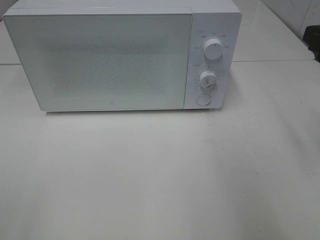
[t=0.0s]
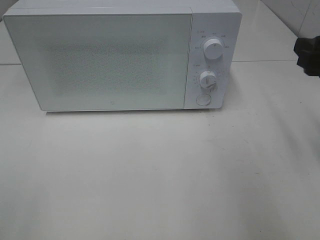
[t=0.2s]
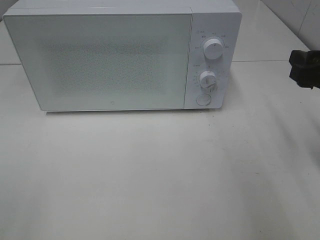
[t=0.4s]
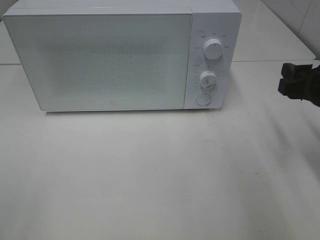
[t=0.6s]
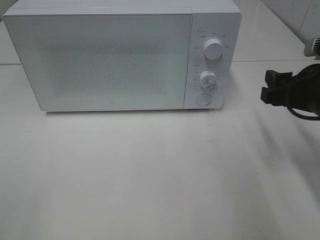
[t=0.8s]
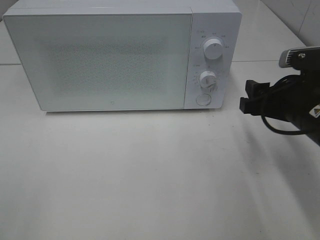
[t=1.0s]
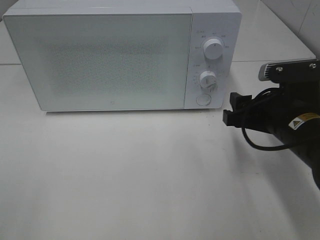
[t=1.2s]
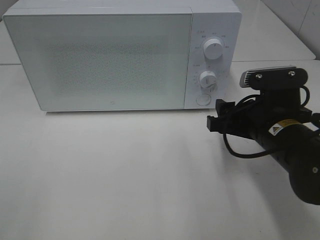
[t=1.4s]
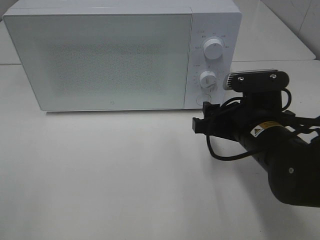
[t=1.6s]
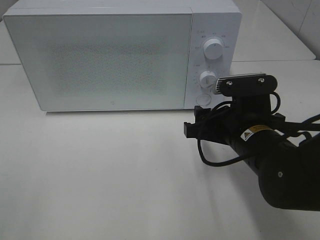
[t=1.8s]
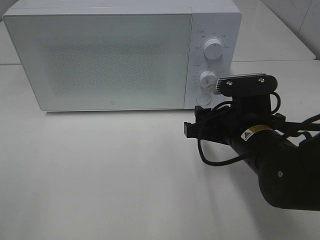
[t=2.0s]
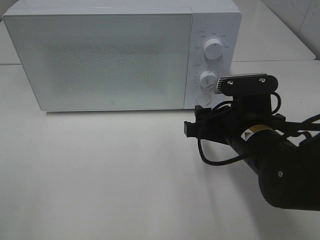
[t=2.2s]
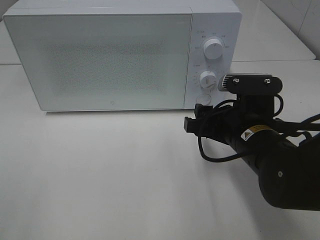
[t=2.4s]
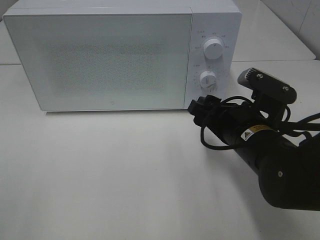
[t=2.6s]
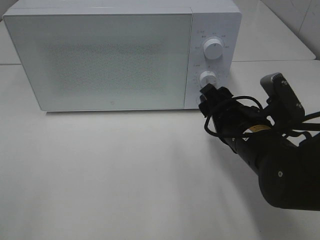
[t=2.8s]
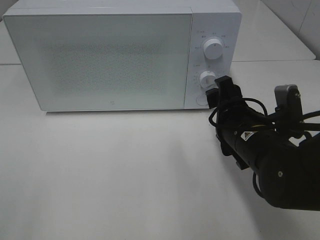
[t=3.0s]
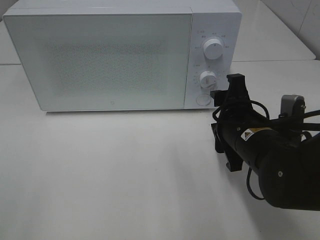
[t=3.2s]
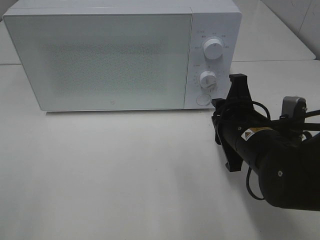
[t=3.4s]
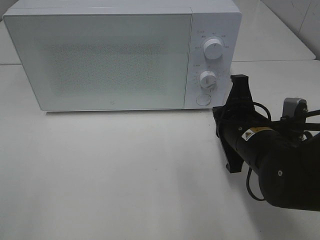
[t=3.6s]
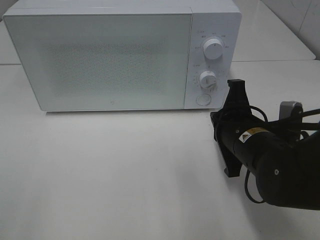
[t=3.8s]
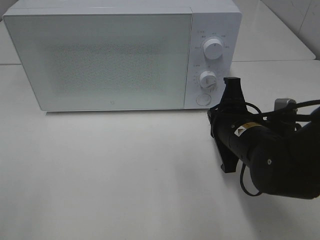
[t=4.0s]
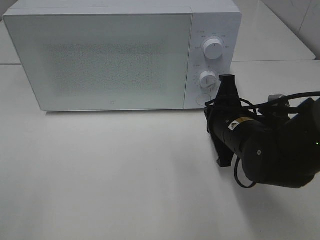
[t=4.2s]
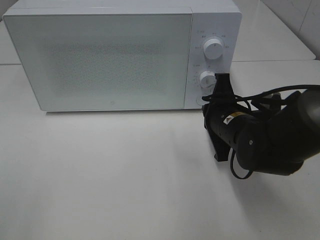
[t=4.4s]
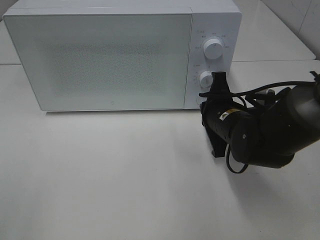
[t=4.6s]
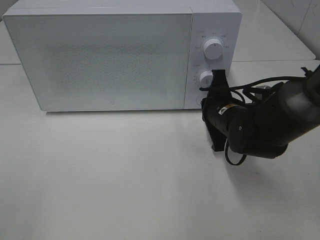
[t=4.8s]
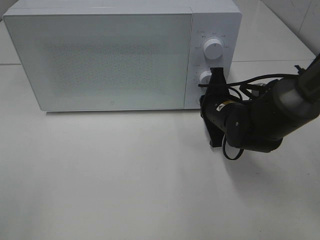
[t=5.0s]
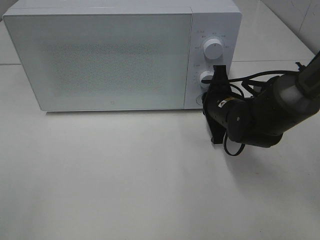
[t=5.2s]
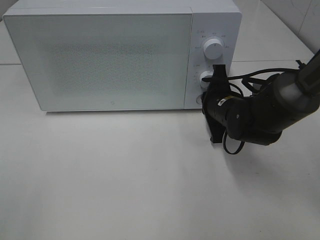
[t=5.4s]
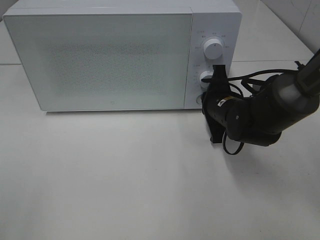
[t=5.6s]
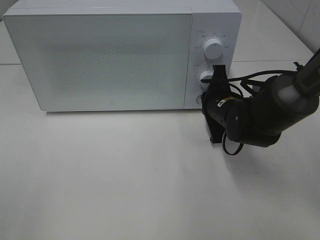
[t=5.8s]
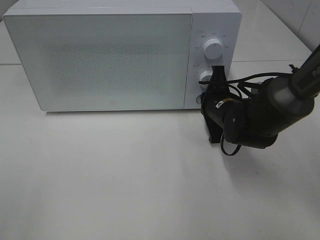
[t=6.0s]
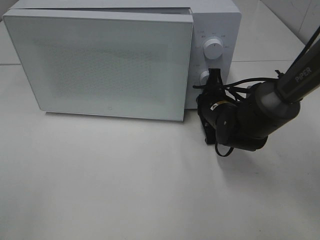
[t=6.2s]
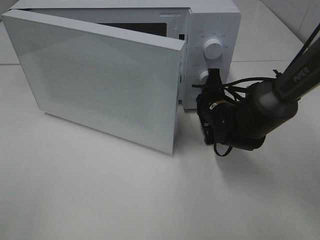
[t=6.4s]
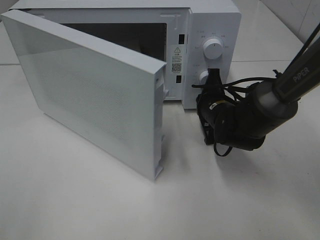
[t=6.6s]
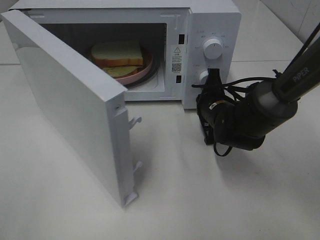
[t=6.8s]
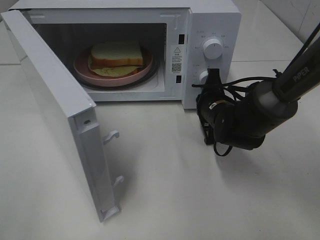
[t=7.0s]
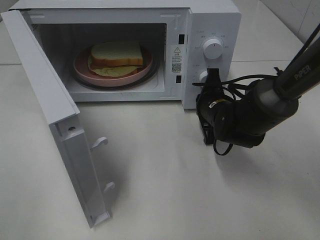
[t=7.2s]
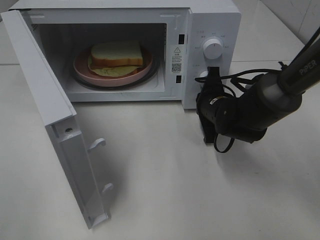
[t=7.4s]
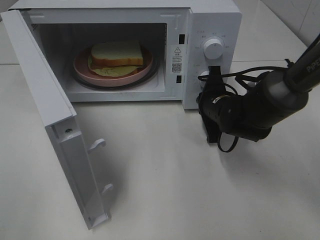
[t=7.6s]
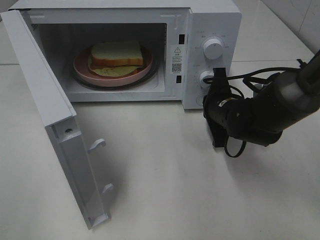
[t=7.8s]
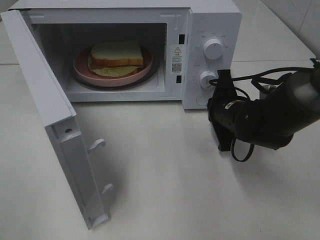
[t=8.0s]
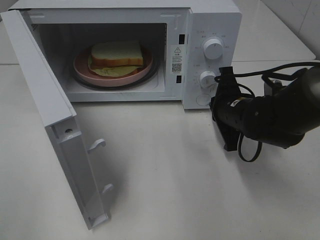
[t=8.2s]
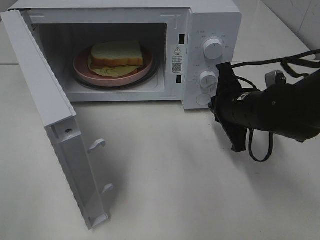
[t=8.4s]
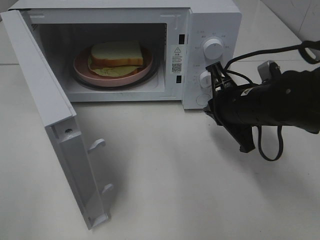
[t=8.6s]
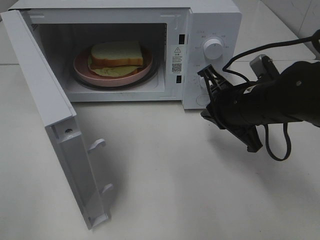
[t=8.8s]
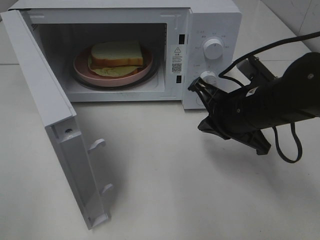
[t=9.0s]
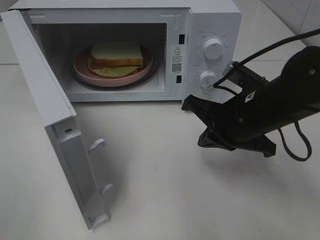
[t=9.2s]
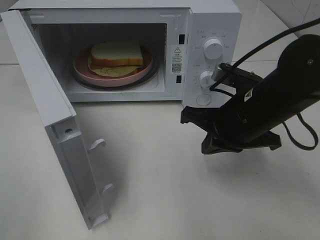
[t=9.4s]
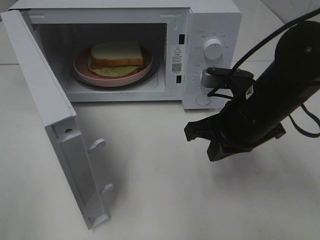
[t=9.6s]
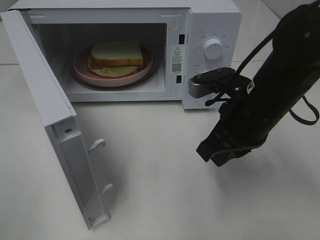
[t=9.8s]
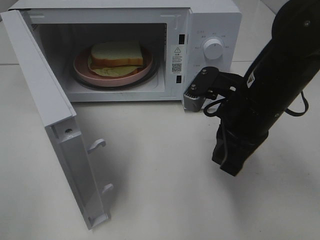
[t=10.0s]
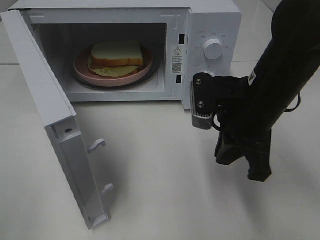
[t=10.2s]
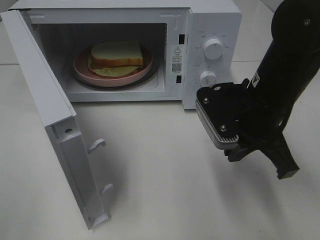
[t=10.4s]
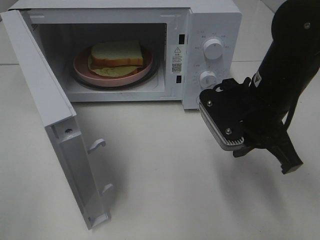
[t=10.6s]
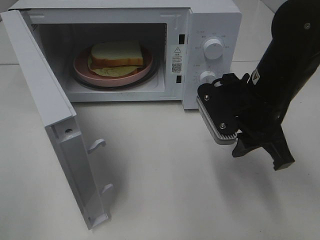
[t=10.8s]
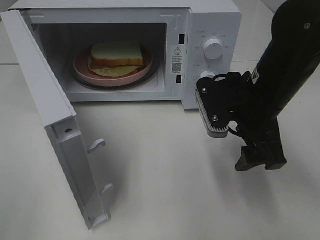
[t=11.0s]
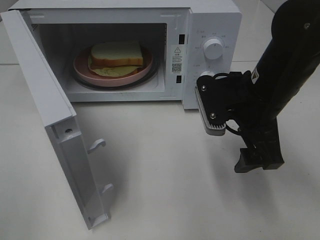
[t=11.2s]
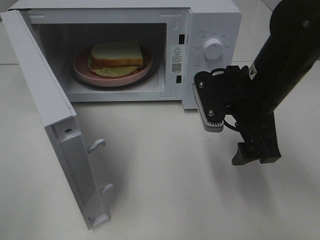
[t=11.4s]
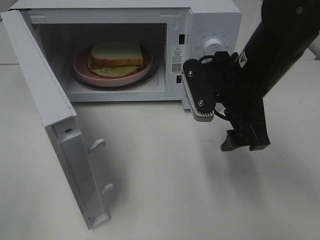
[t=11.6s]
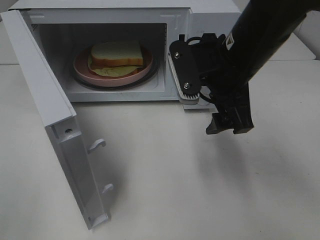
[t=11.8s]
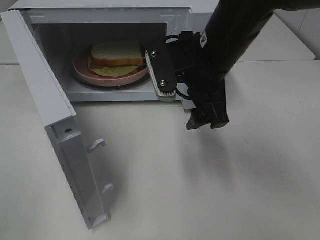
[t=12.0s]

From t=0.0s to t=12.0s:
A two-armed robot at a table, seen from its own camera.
Task of the whole recording: Heat Sandwich.
Step, from t=0.0s to t=8.2s: Right hand: press the switch.
From t=0.0s to t=1.6s: The right gripper goes about 20 cm downward and to the left.
From t=3.0s to t=4.4s: The right gripper travels forward by roughly 5 cm, and closes its fingers.
From t=4.4s to t=6.0s: The right gripper is displaced forward by about 5 cm.
From t=7.6s to t=9.0s: The right gripper moves backward and upward, roughly 10 cm.
From t=10.4s to t=12.0s: The right gripper shifts about 5 cm to the left, and opens up.

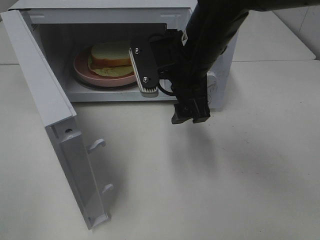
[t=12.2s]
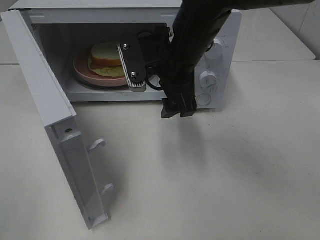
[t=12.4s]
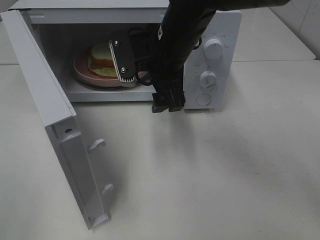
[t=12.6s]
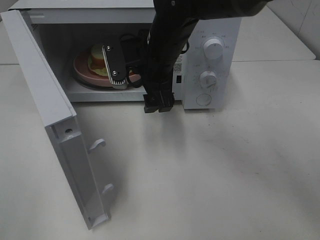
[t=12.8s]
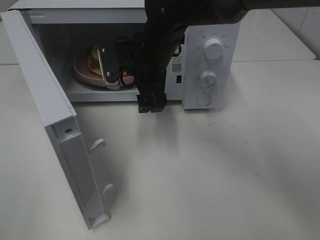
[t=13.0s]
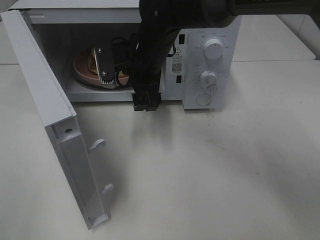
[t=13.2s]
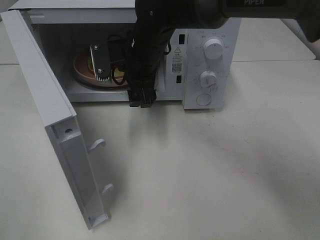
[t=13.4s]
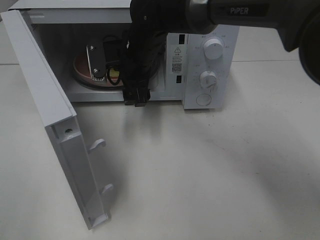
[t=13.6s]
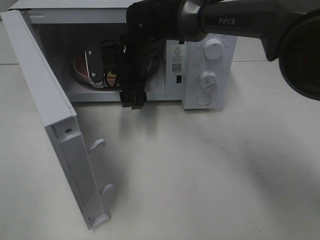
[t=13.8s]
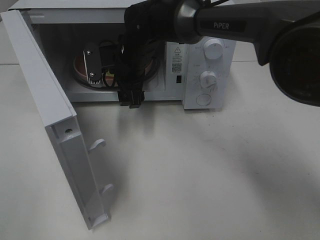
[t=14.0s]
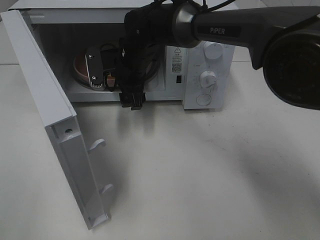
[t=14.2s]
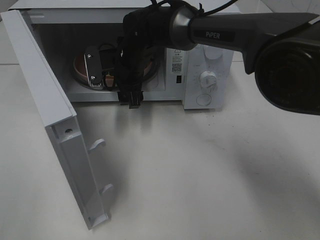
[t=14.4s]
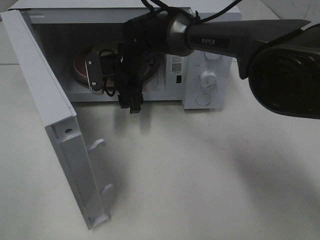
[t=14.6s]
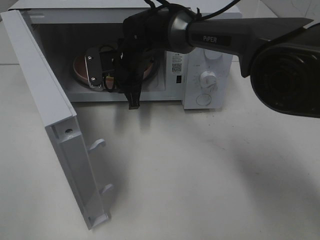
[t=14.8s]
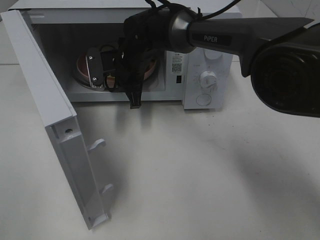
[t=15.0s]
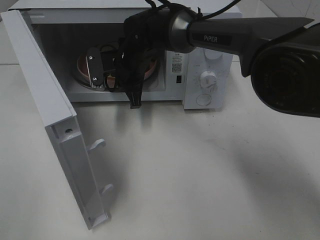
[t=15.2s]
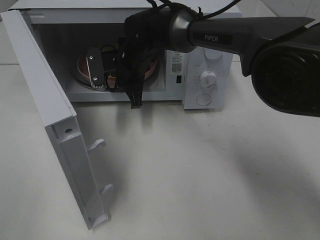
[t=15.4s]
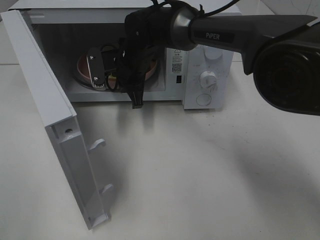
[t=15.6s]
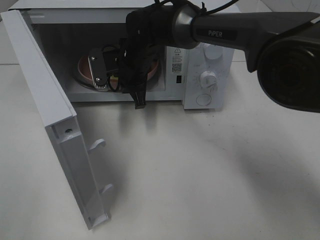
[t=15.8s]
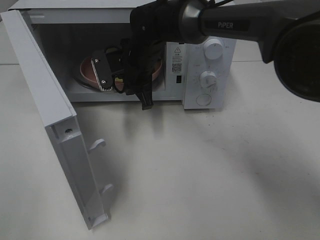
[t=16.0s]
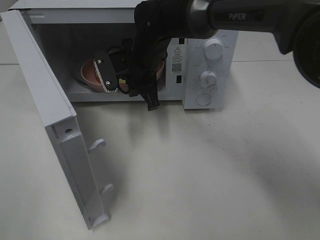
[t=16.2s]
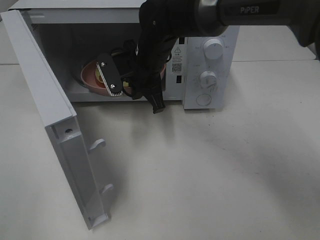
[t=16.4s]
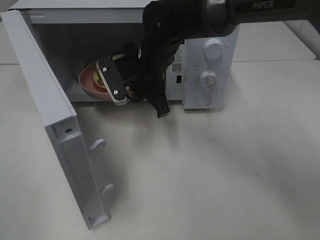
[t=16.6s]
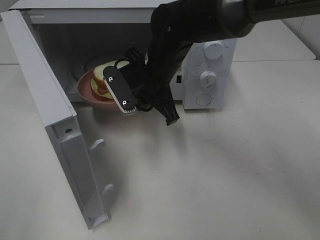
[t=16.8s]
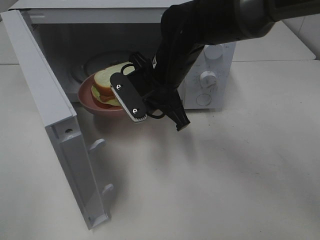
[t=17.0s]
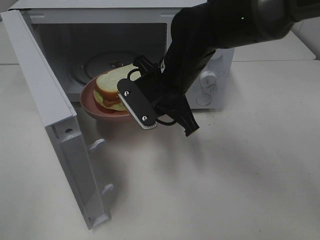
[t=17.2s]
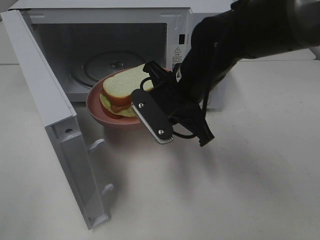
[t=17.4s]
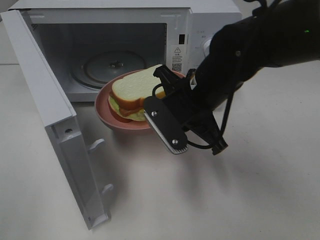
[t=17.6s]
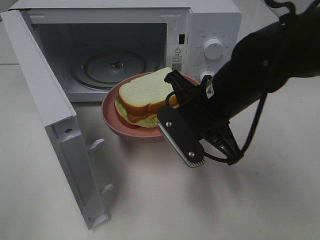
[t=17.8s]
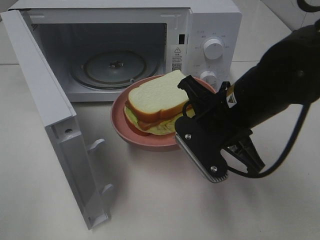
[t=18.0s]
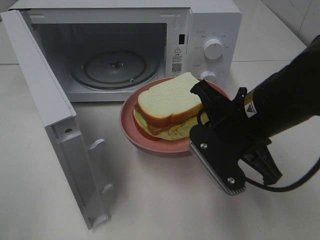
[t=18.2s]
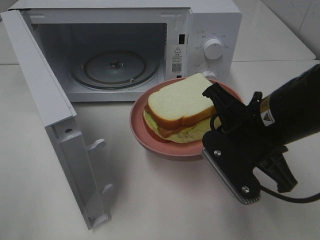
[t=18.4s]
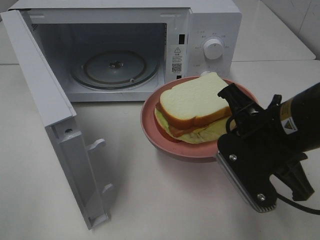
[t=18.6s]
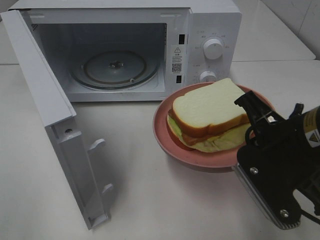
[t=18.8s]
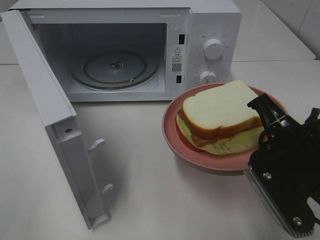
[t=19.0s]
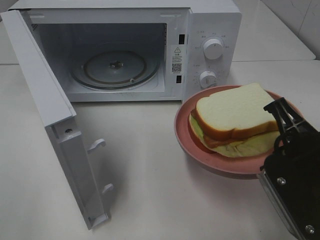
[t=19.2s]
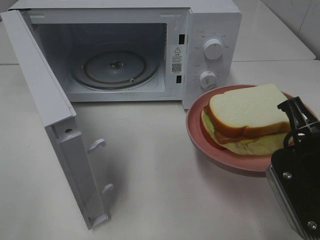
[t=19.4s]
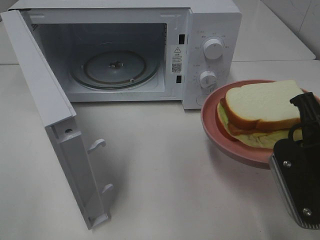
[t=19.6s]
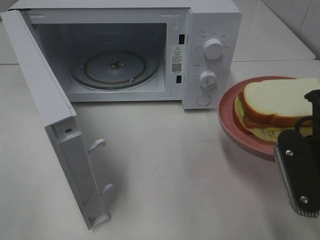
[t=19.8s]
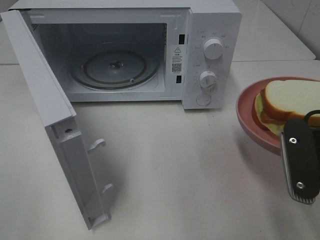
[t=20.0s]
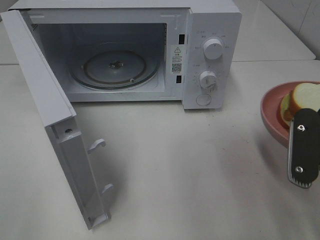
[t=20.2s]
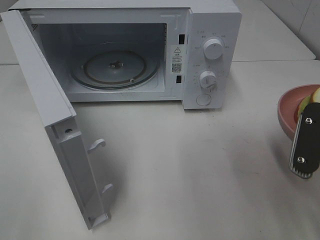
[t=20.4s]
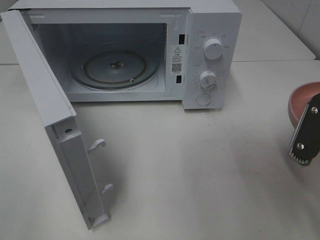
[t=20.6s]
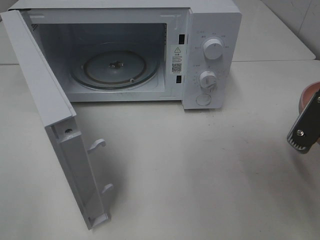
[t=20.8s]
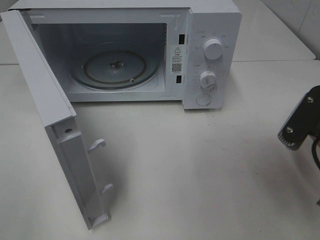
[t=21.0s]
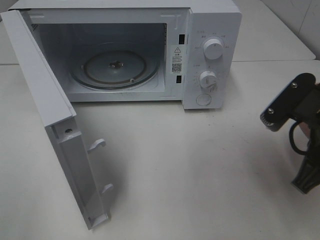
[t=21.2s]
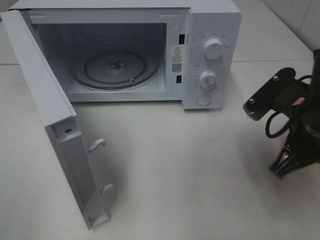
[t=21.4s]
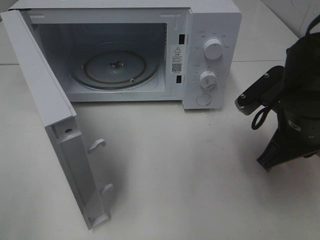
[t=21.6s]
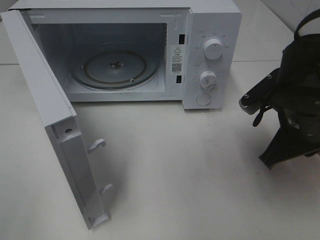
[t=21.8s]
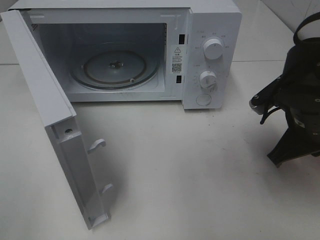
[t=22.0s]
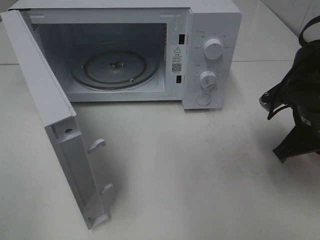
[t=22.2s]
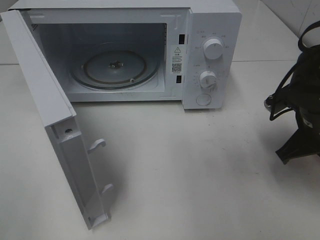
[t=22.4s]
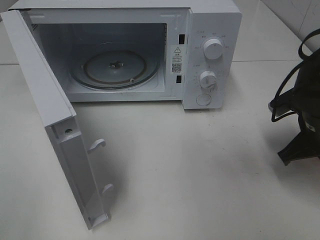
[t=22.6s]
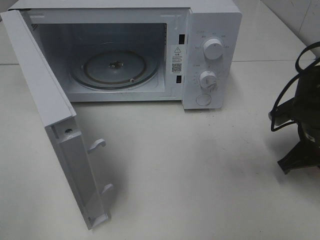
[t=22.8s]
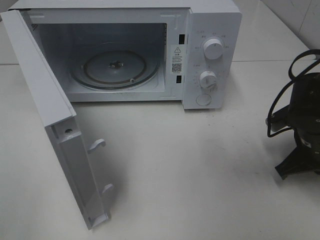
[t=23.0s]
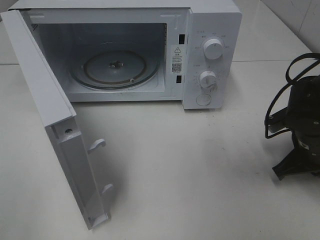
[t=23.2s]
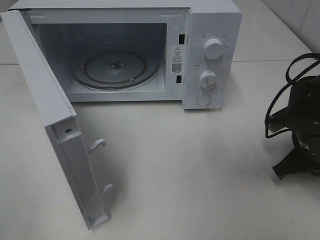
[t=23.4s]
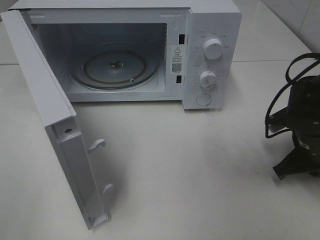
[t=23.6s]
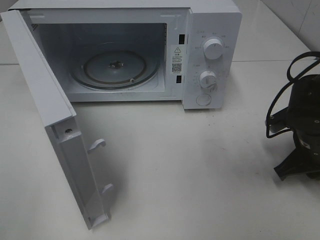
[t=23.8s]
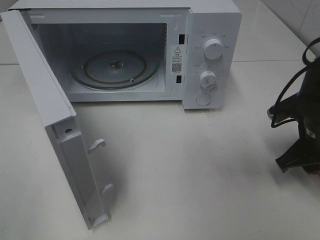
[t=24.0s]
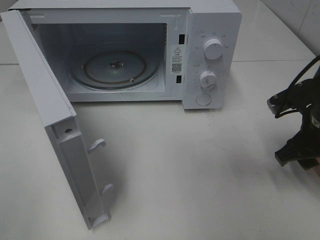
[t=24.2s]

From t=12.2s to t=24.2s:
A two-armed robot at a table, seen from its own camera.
Task of the whole recording: Heat Sandwich.
Step, from t=12.2s to t=15.6s: Right hand: grab the plate with the sandwich.
From t=12.2s to t=13.8s: The right gripper is displaced forward, to the left and downward by about 15 cm.
From t=13.8s to t=15.2s: The right gripper closes.
From t=15.2s to t=16.6s: The right gripper shifts some 5 cm backward.
From t=16.6s to t=18.2s: The right gripper is displaced backward and to the right by about 20 cm.
From t=18.2s to t=19.8s: The right gripper shifts roughly 10 cm to the right and backward.
From t=21.2s to t=22.6s: The right gripper travels forward and downward by approximately 10 cm.
From t=22.6s to t=24.2s: The right gripper opens.
